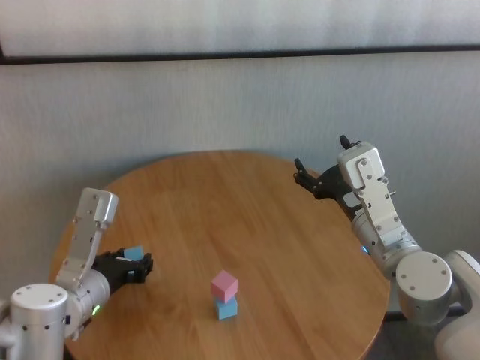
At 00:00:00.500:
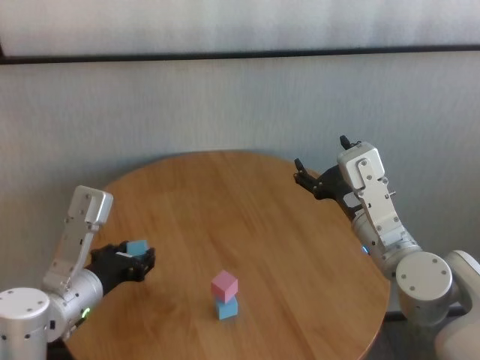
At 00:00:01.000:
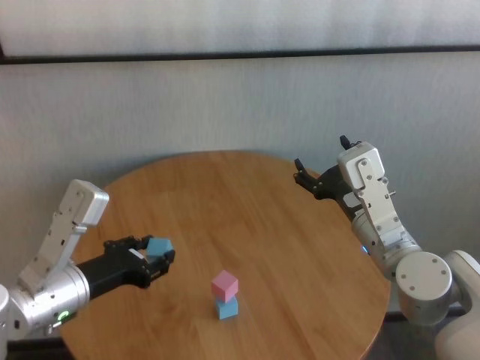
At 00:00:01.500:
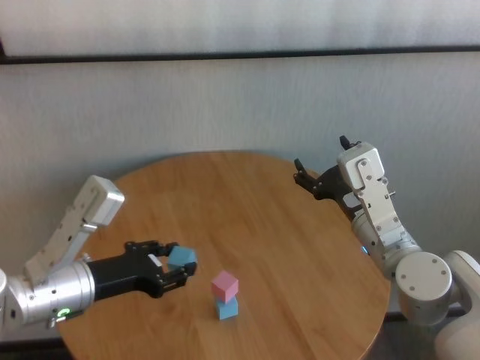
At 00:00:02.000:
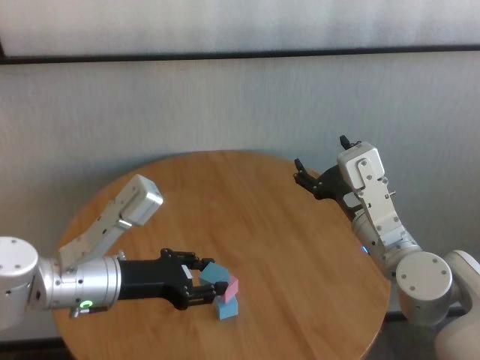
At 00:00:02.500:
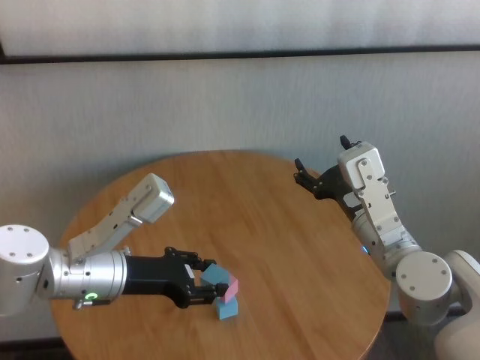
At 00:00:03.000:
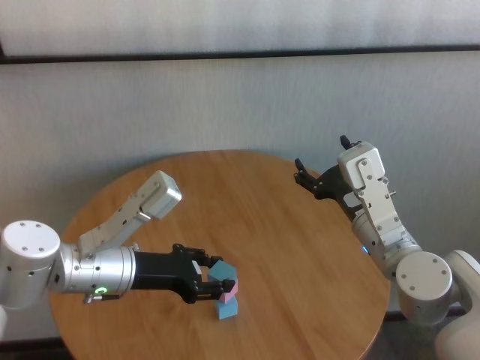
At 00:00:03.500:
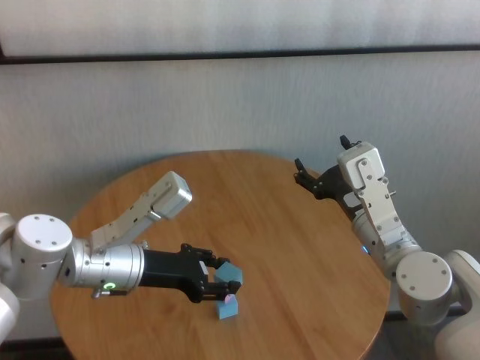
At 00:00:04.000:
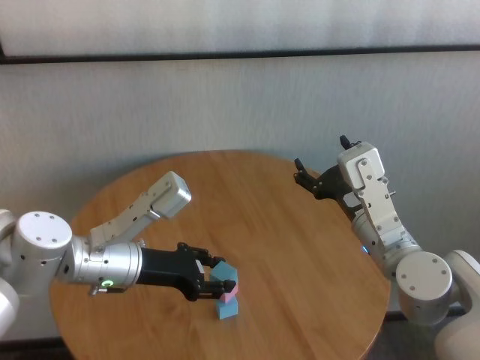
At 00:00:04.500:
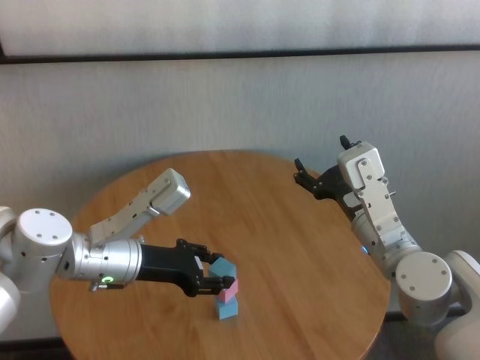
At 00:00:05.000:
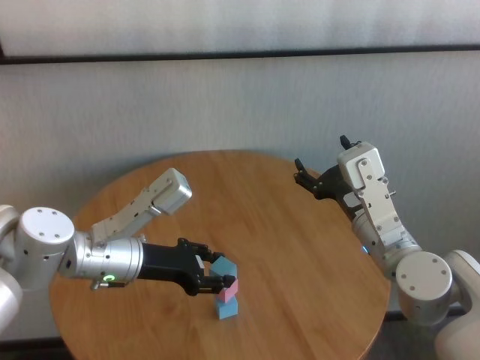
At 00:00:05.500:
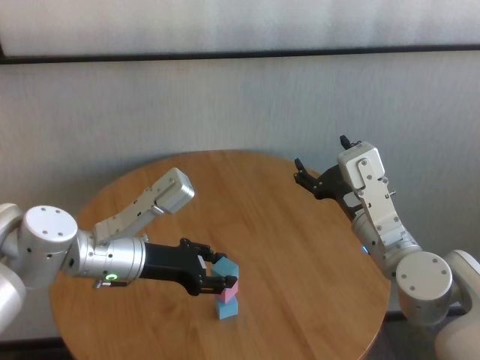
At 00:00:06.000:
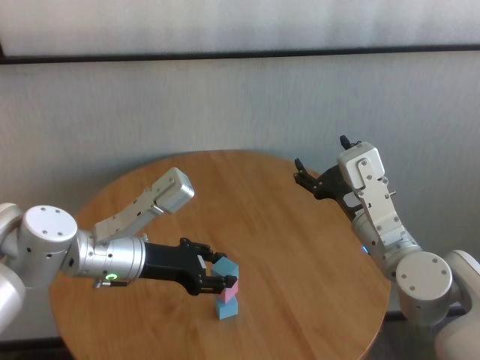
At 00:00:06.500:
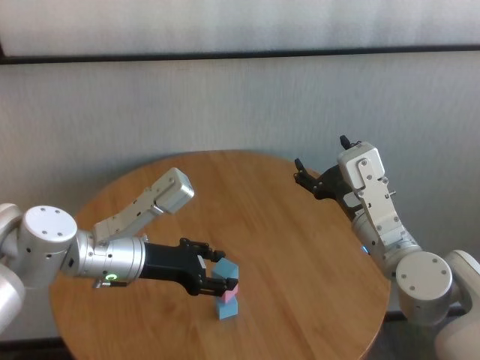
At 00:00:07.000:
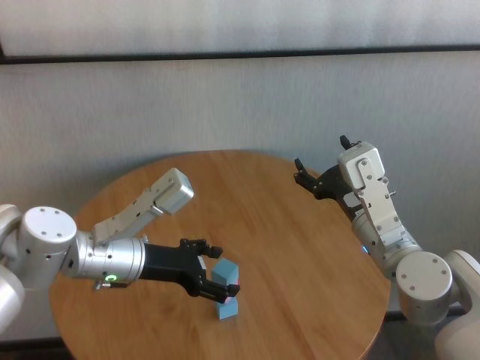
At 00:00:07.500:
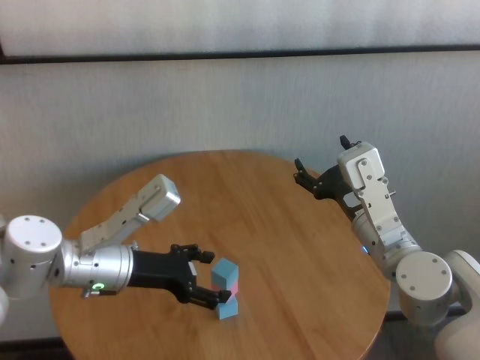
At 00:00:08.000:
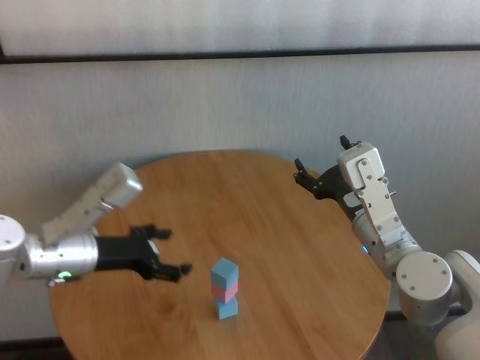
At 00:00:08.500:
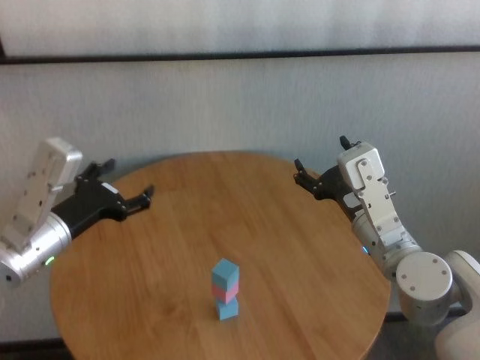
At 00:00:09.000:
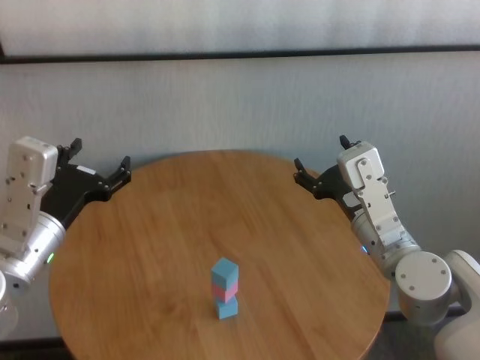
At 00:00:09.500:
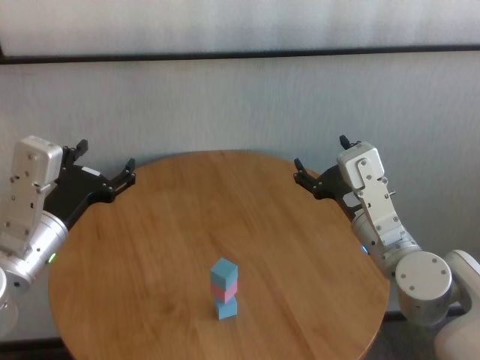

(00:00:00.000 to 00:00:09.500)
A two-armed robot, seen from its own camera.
Task of the whole recording: stack building blocks on the table.
Step, 00:00:00.000 - 00:00:06.500: Place the blue building block on the pink building blocks with left gripper.
